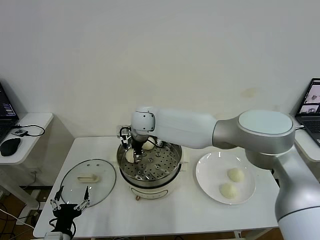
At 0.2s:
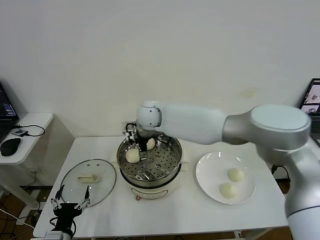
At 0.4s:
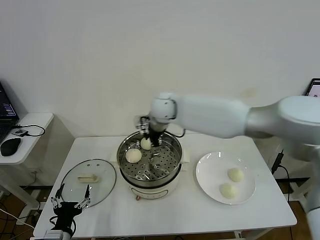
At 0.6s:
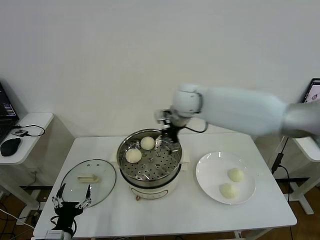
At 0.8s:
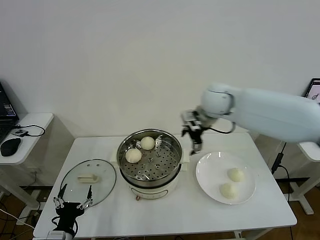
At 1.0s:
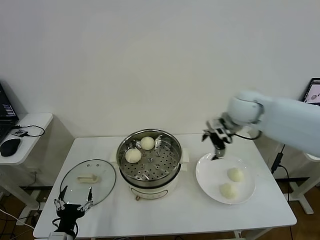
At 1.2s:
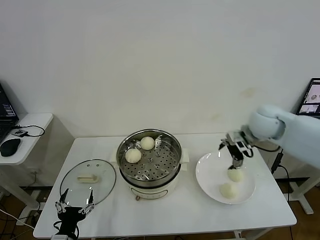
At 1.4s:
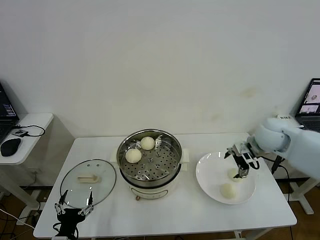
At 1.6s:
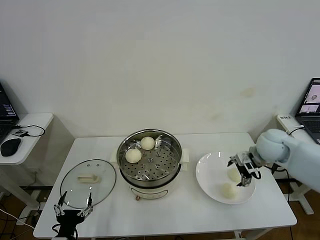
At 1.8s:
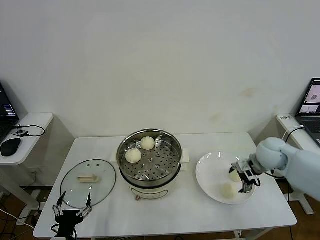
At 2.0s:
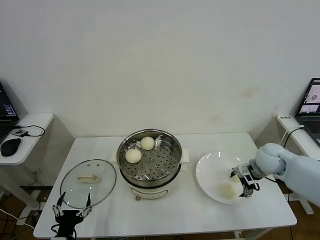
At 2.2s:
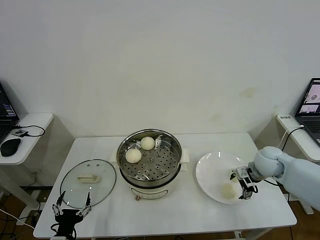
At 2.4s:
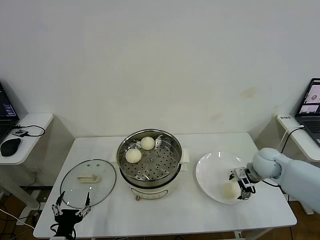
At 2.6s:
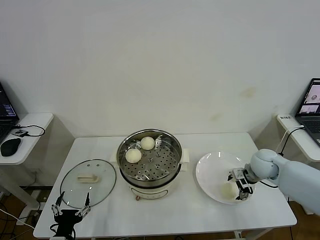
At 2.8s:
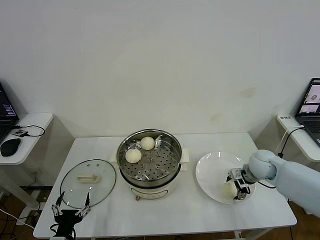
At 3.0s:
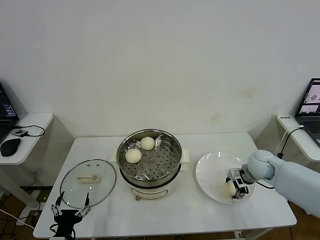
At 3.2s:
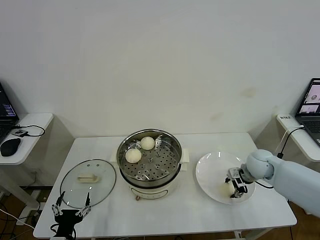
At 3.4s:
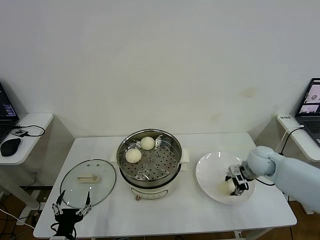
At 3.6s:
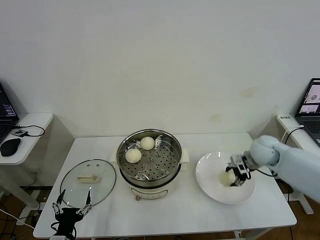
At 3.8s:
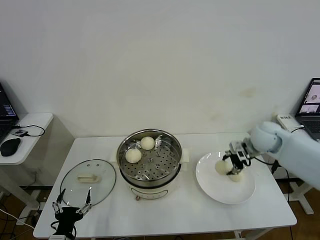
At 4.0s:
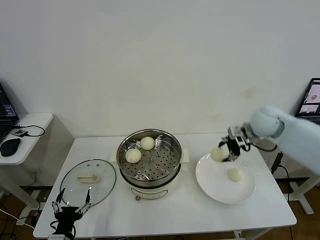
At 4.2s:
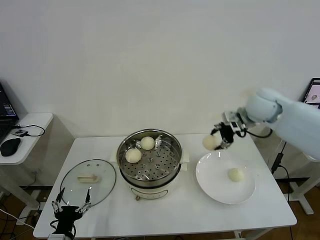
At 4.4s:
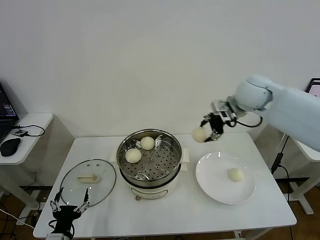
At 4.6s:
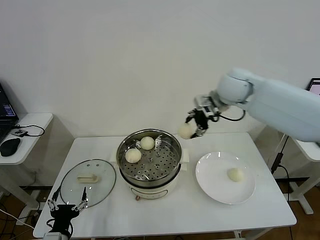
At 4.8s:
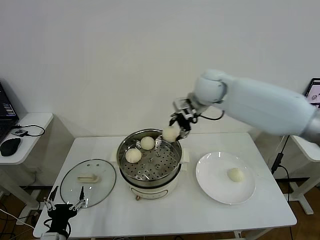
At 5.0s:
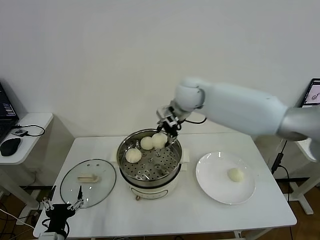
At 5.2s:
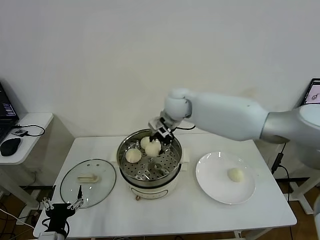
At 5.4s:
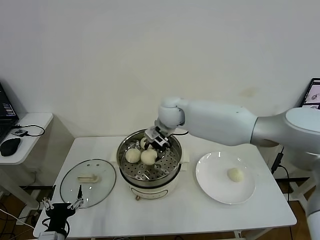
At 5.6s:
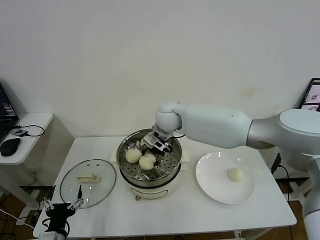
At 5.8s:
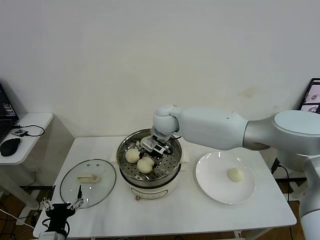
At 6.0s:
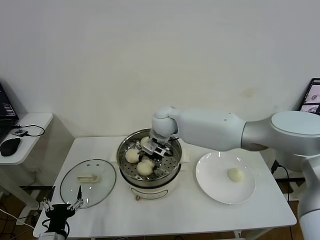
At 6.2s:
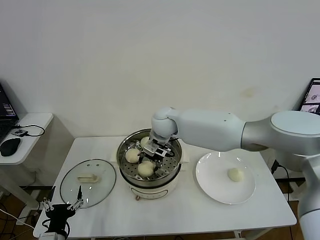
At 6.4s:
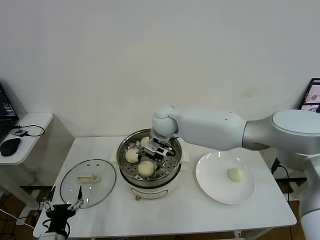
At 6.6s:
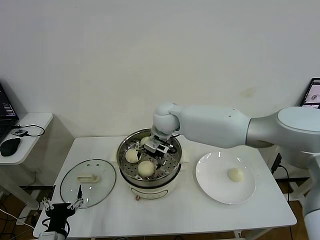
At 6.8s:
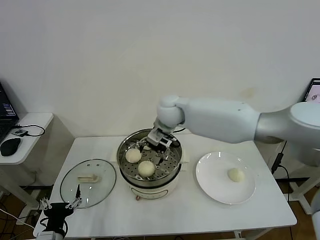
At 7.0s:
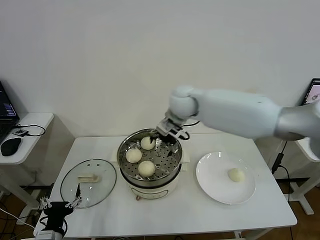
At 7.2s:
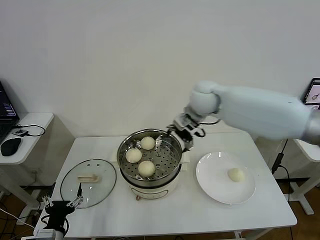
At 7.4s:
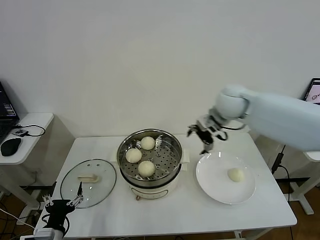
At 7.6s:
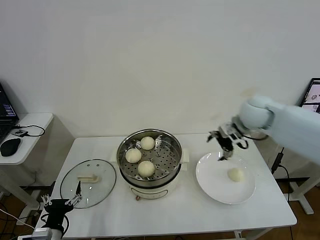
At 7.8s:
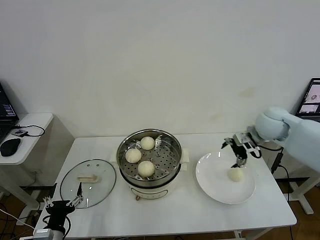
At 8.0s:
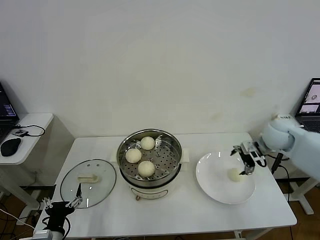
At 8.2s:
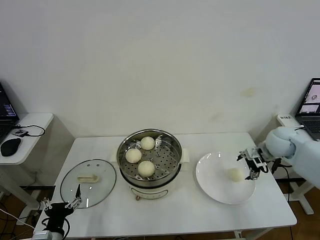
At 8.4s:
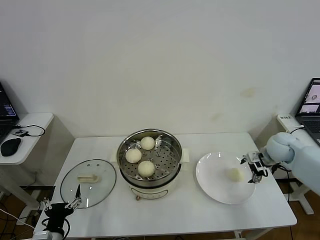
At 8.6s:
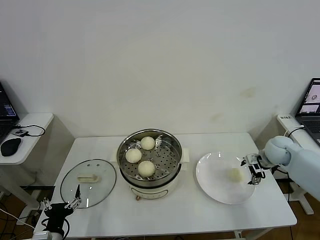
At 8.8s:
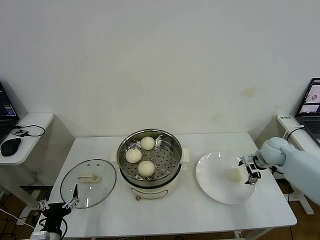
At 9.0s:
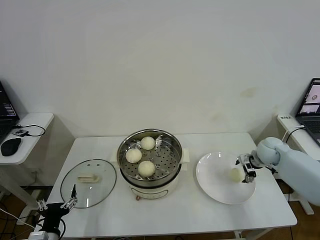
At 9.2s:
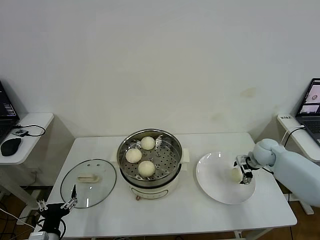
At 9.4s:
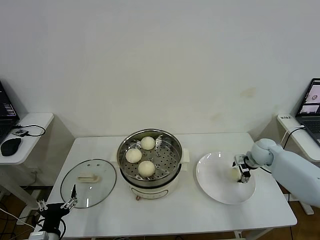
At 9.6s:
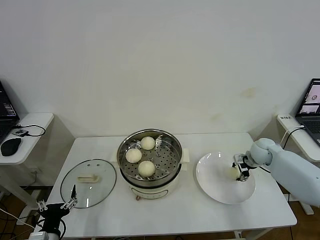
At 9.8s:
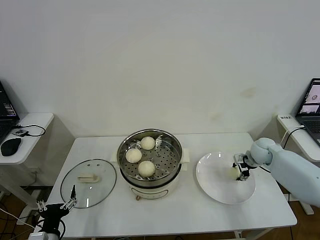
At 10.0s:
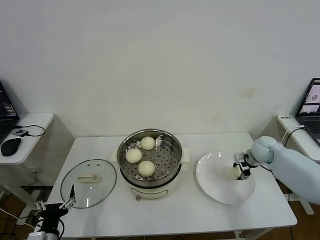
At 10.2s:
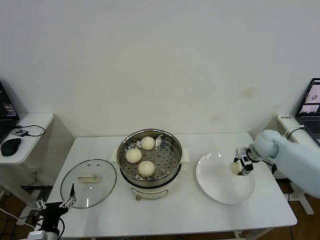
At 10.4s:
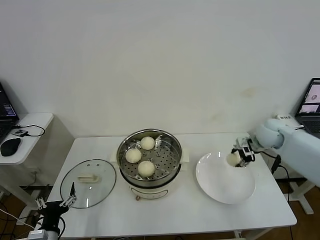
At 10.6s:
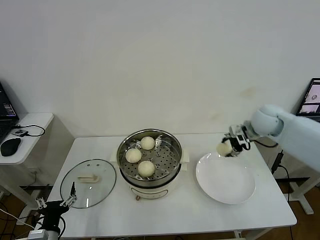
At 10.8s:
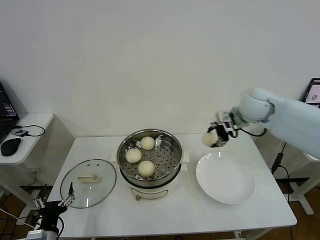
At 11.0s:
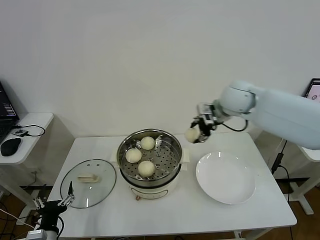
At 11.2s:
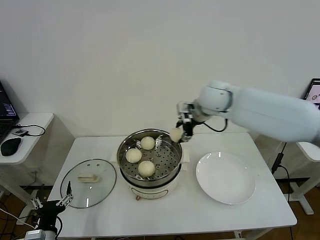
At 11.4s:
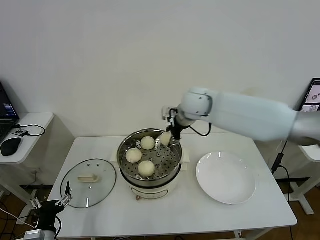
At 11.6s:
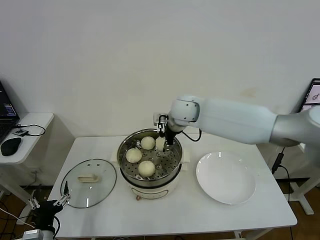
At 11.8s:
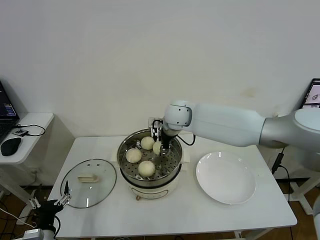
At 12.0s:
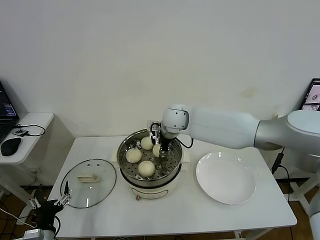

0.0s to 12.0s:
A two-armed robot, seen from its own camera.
Step, 0.2s to 3.2s: Grasp the baozi in the plate with right gripper.
Step, 3.4s to 6.4s: Place the baozi on the steamer with right gripper.
Step, 6.8s to 9.8s: Grasp the baozi in the plate with right gripper.
0.0s to 1.6s: The right gripper moves to the right, roughly 40 cm, and opens.
1.6s to 3.0s: The right gripper moves downward, some 10 cm.
3.0s to 4.4s: The right gripper shifts about 25 cm upward.
4.4s to 6.0s: The right gripper moves to the left and downward, some 30 cm.
6.0s to 7.6s: The right gripper shifts approximately 25 cm to the right, and opens its fingers.
7.6s to 9.0s: The right gripper shifts some 25 cm downward and to the right.
9.0s to 10.4s: The right gripper shifts about 5 cm upward, and closes up.
10.4s to 12.0s: The right gripper shifts approximately 35 cm to the left.

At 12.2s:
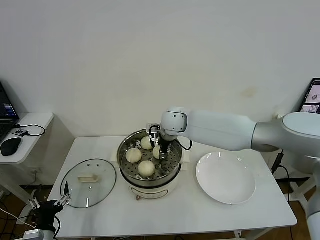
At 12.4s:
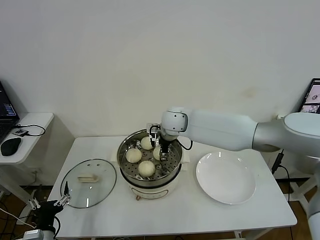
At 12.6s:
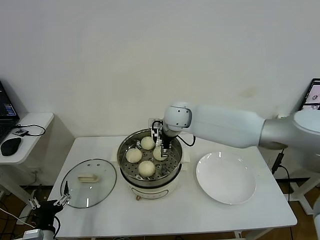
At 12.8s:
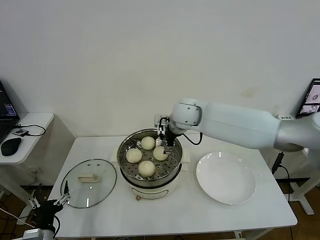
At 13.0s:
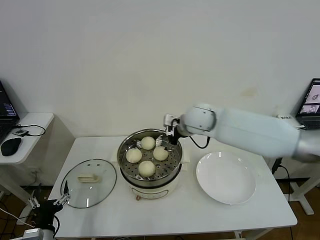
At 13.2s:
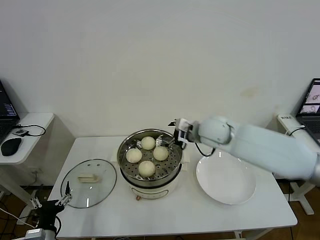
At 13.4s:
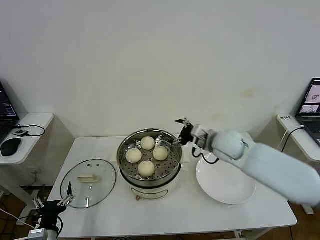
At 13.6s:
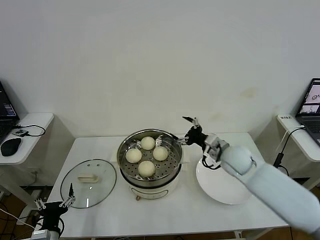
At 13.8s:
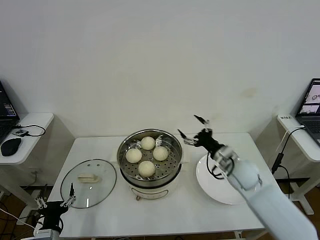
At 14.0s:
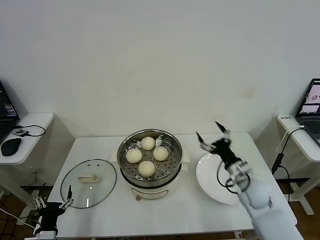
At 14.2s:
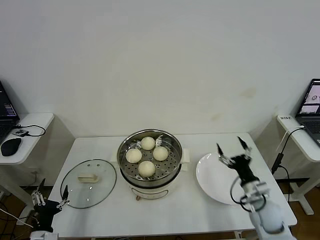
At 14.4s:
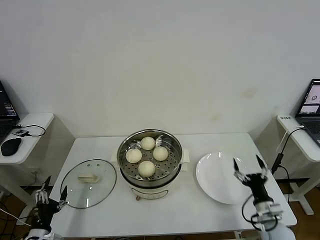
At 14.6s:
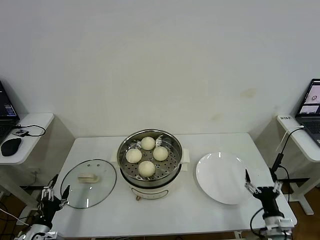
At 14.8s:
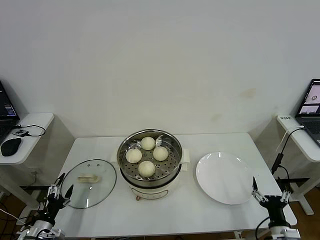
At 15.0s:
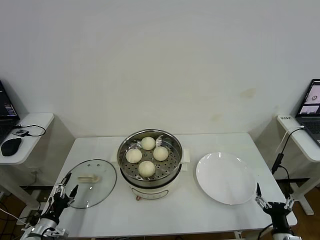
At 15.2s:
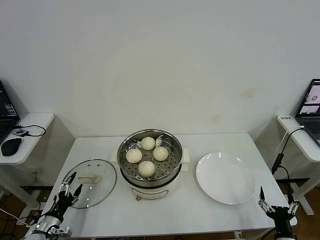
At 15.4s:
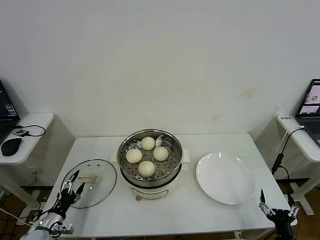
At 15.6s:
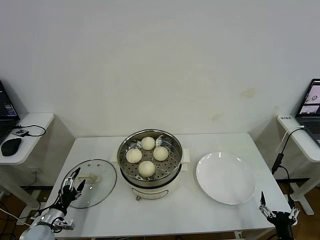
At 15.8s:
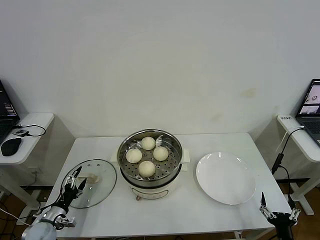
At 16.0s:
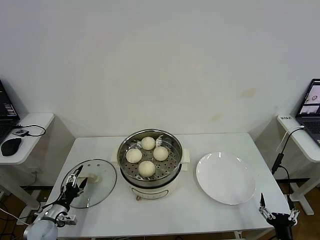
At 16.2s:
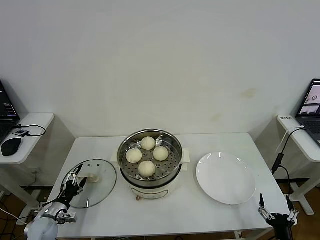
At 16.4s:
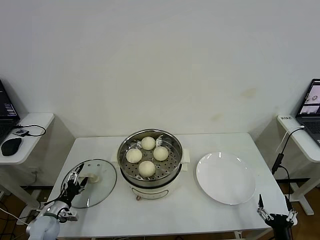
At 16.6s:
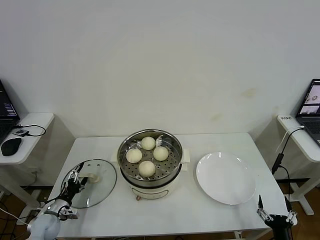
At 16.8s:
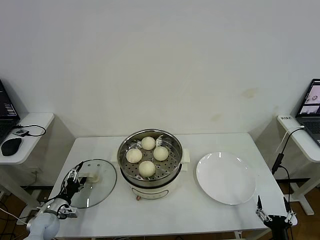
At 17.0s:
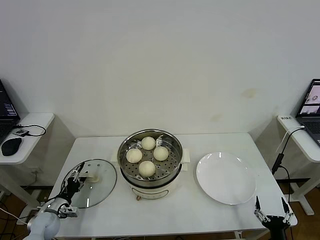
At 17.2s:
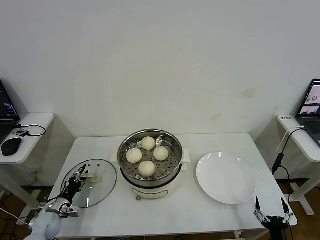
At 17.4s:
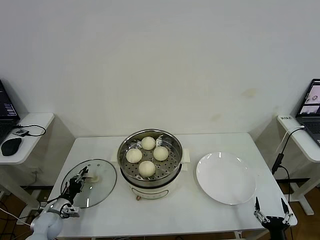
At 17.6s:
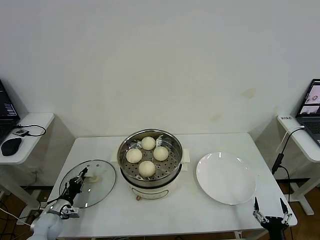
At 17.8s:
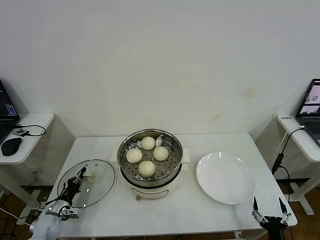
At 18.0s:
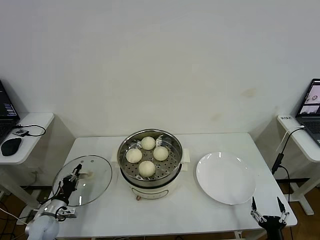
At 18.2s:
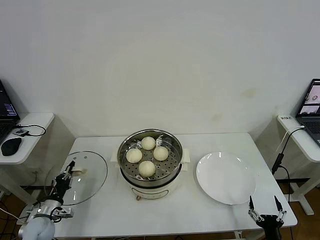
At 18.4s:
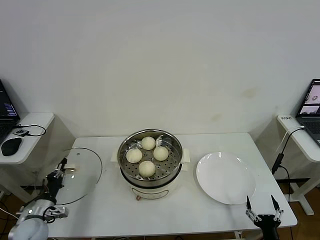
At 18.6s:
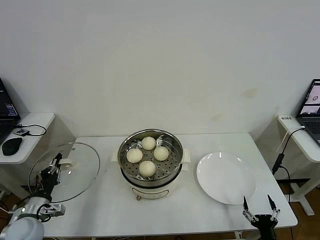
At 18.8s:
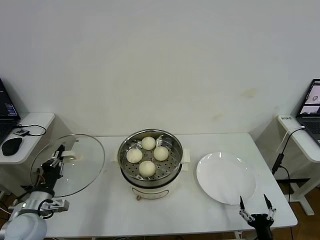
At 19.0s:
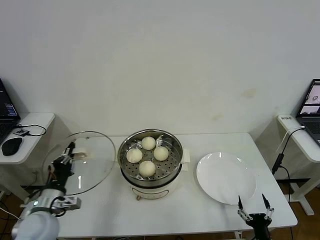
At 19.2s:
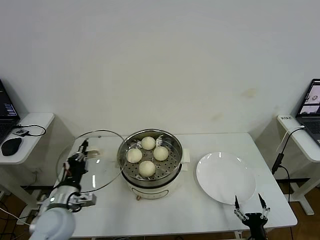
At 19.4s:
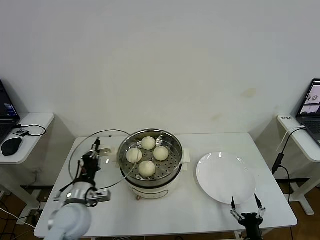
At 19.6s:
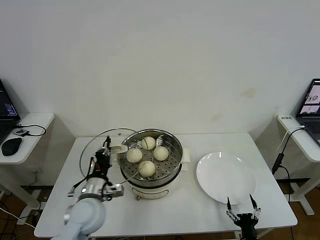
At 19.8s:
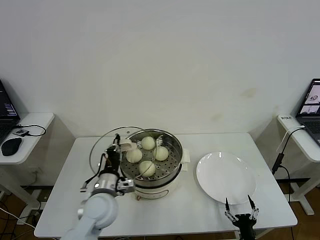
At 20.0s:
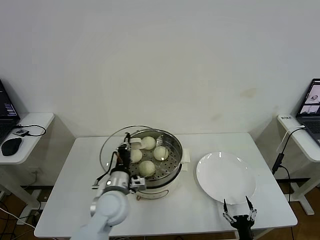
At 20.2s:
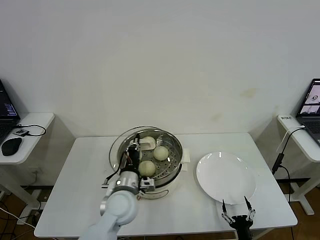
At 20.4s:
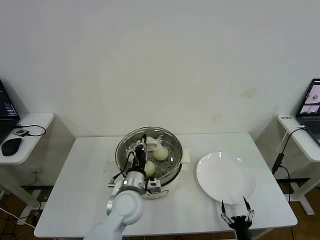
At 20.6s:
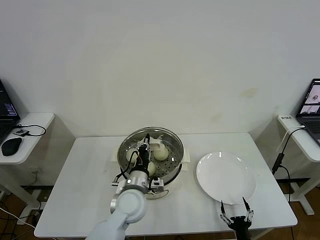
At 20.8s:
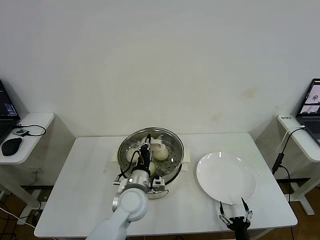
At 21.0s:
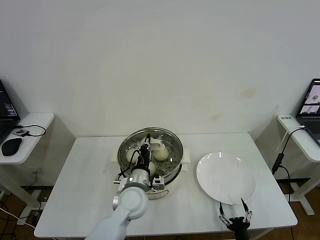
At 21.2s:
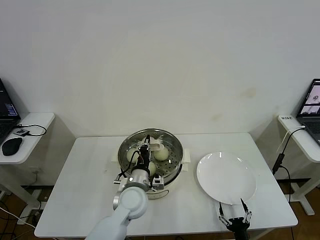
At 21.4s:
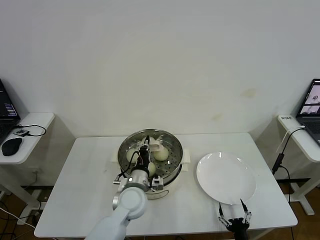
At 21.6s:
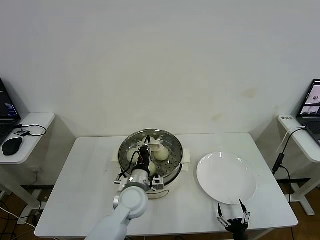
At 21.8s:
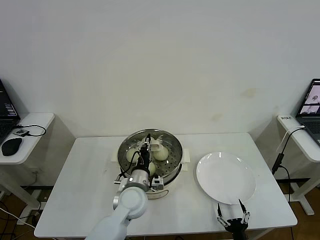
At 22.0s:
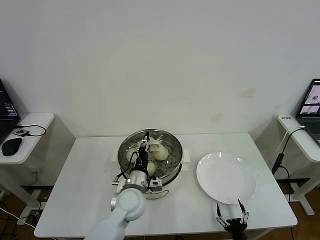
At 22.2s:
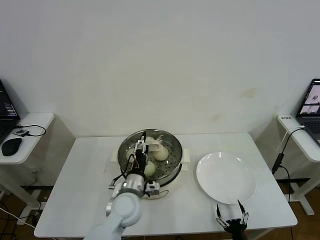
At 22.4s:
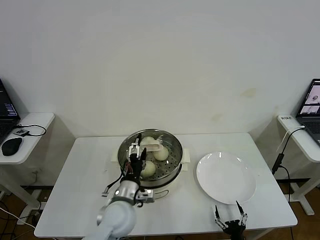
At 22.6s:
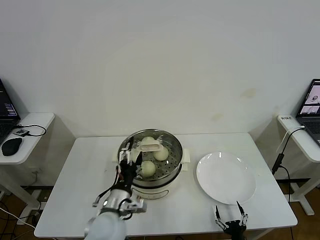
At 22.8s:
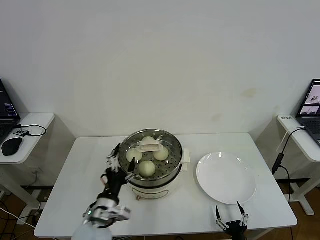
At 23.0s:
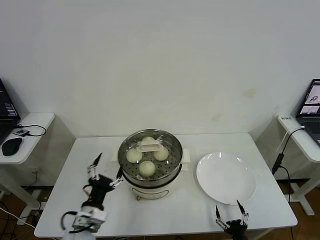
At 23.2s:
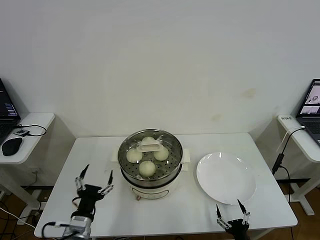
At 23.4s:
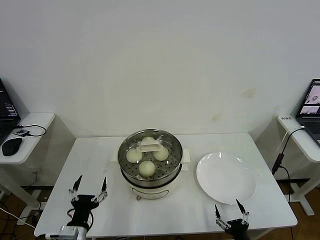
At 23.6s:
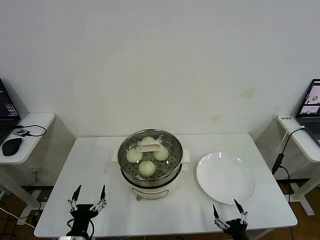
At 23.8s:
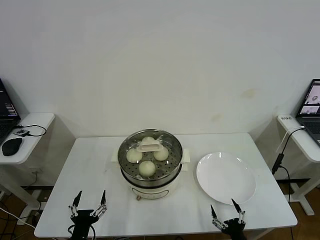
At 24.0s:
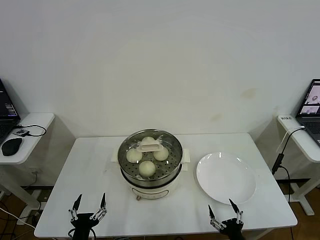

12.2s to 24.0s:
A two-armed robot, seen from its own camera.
Step, 12.8s to 17.6s: Grasp the pot lid with left gripper.
Step, 17.8s to 22.0s: Place the pot lid on the steamer with left gripper.
12.2s to 13.6s: The right gripper moves to the right and backward, some 20 cm, and opens its fingers.
13.6s to 15.2s: The left gripper is displaced to the left, downward and forward by roughly 15 cm; the right gripper moves backward, downward and to the right, about 40 cm.
15.2s to 16.6s: The left gripper moves forward, approximately 5 cm.
16.6s to 18.2s: The left gripper closes its fingers.
18.2s to 19.6s: The right gripper is displaced to the left by about 5 cm, while the left gripper heads to the right and upward, covering roughly 25 cm.
19.6s to 21.0s: The left gripper moves to the right, approximately 15 cm.
21.0s to 22.6s: The left gripper goes about 5 cm backward, and opens its fingers.
22.6s to 24.0s: The left gripper goes about 20 cm backward, to the left and downward; the right gripper heads upward, covering about 5 cm.
